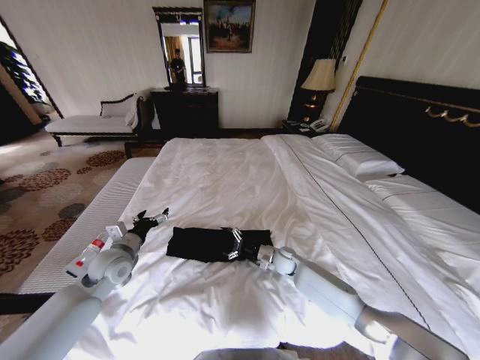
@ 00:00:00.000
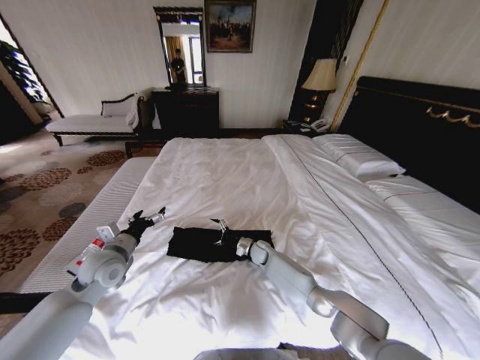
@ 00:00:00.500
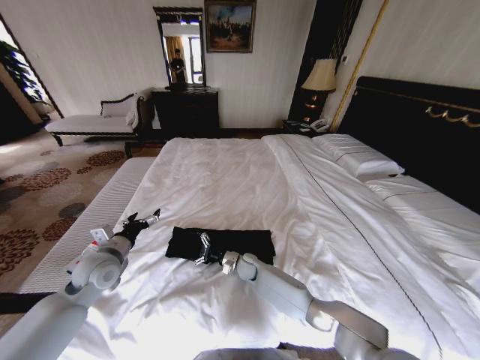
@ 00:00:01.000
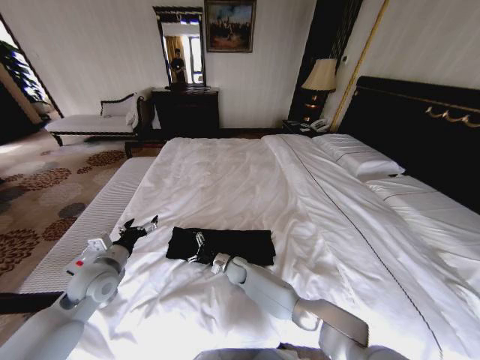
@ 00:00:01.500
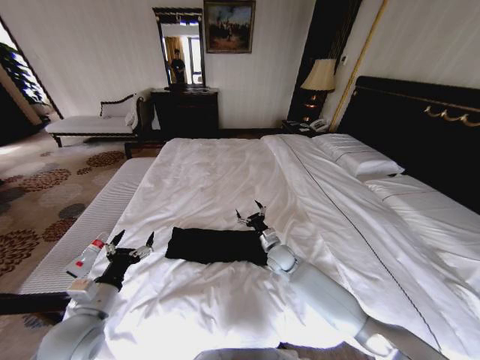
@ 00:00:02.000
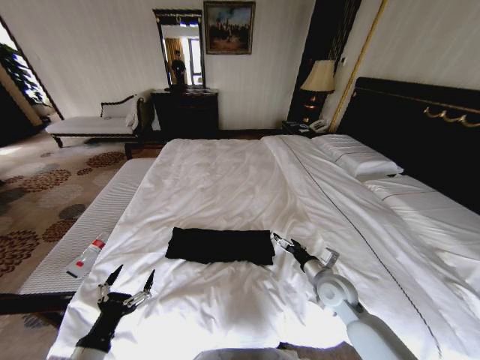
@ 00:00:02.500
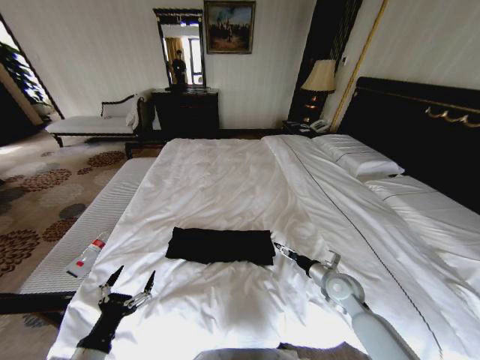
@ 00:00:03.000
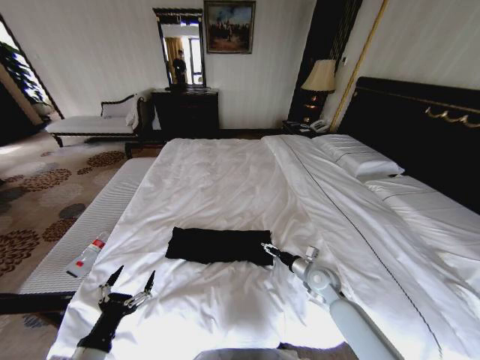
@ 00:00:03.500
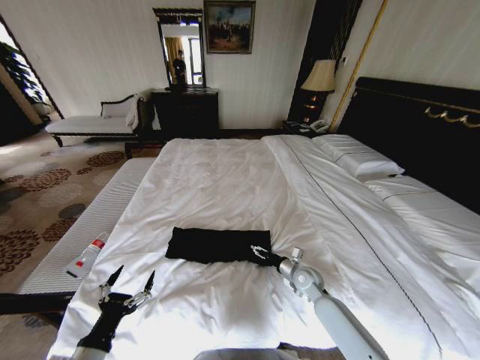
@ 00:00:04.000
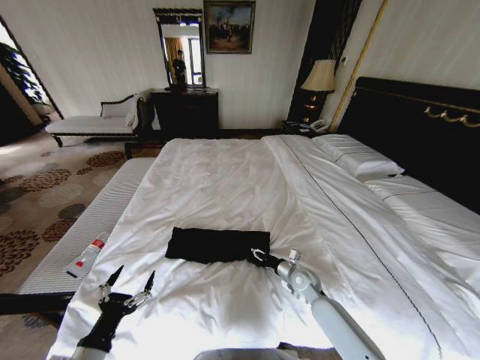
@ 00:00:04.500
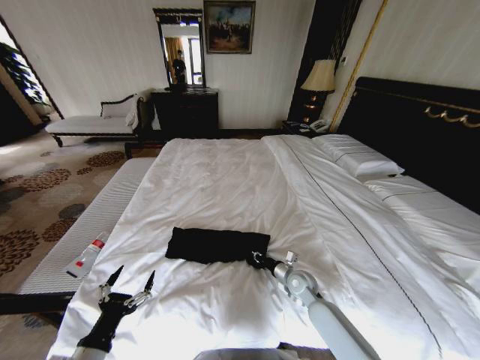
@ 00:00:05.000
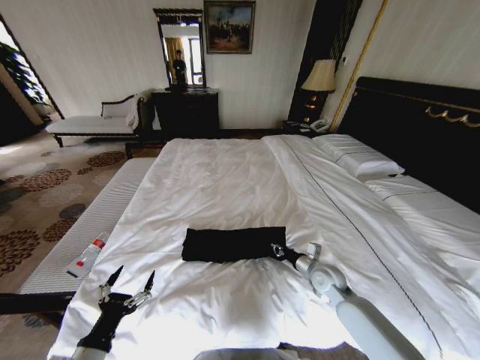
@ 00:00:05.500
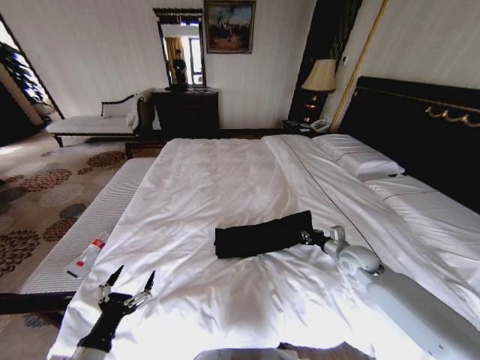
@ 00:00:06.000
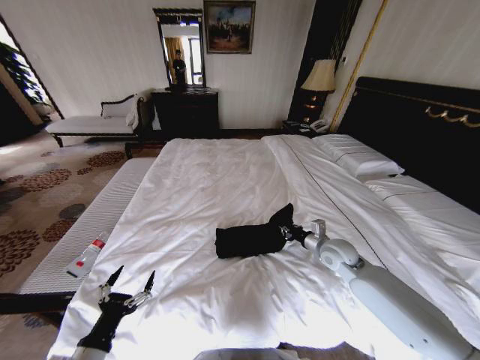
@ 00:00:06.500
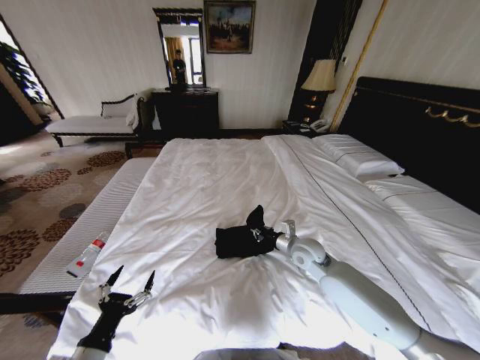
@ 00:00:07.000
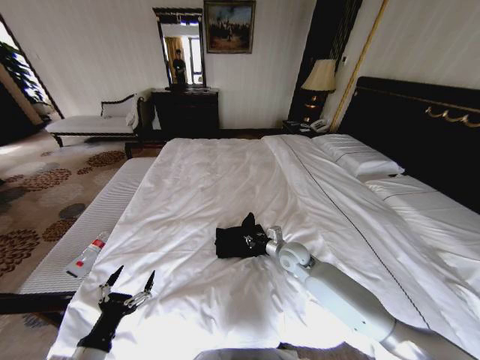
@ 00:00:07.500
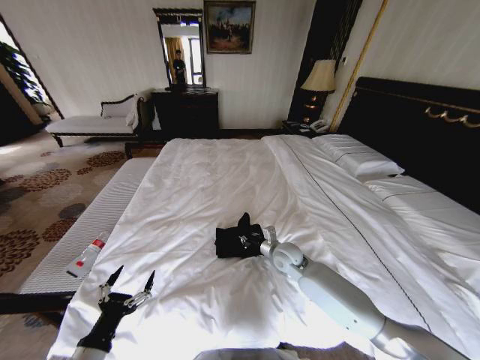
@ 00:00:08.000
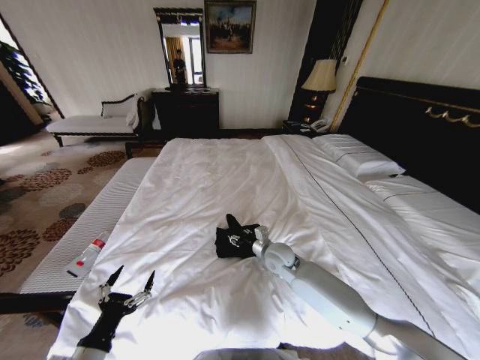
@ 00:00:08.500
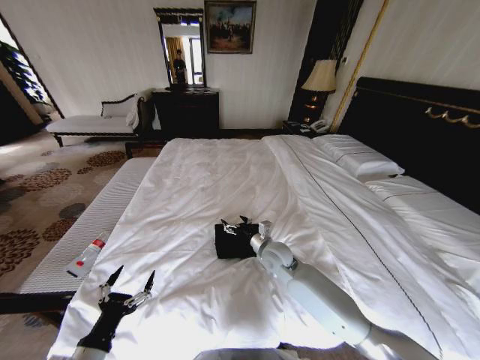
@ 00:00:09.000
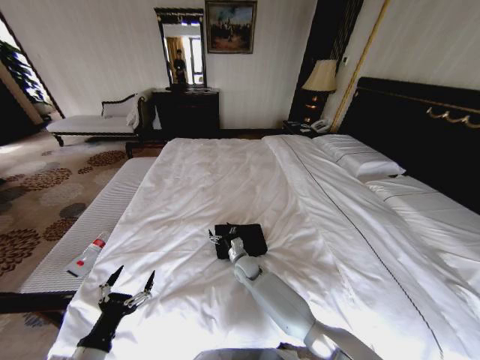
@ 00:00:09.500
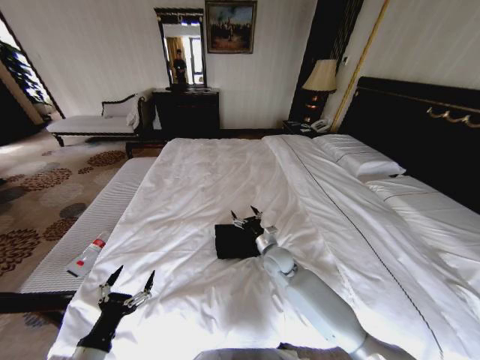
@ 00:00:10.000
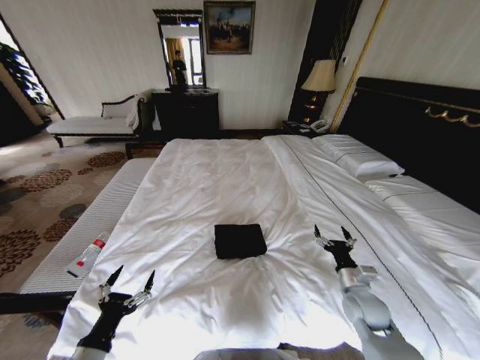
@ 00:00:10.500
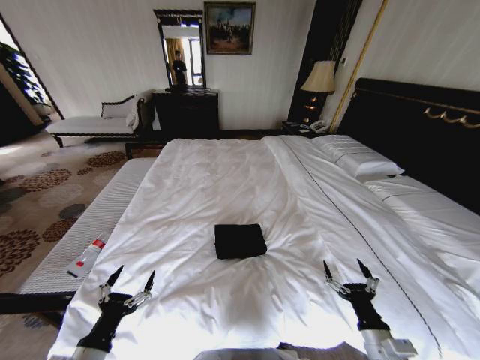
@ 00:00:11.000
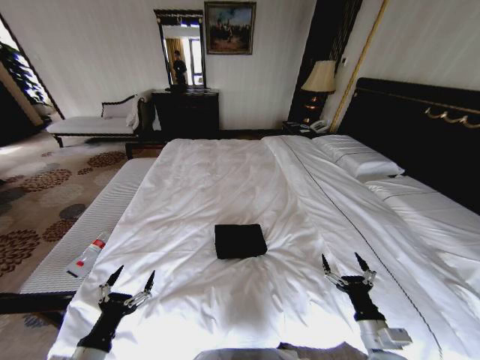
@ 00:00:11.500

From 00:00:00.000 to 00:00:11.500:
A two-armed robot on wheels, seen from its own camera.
Task of the whole recording: Fold the clothes on the bed.
From 00:00:00.000 to 00:00:02.000: The left gripper goes about 15 cm backward. The right gripper shifts about 5 cm upward, and moves about 20 cm to the left and comes back.
From 00:00:02.000 to 00:00:04.000: The right gripper heads to the right and backward, covering approximately 10 cm. Meanwhile the left gripper heads backward, covering about 10 cm.
From 00:00:04.000 to 00:00:06.000: The right gripper is displaced to the right and upward by about 15 cm, and closes.
From 00:00:06.000 to 00:00:07.500: The right gripper is displaced to the left by approximately 20 cm.
From 00:00:07.500 to 00:00:09.500: The right gripper shifts roughly 20 cm to the left and downward, and opens its fingers.
From 00:00:09.500 to 00:00:11.500: The right gripper goes roughly 40 cm to the right and backward.
